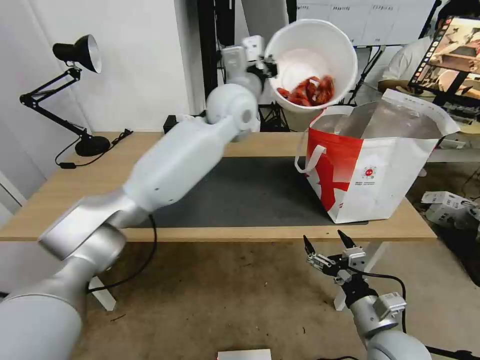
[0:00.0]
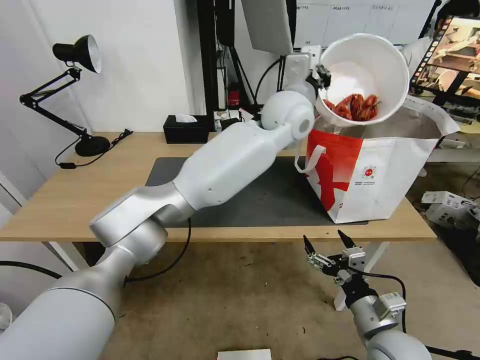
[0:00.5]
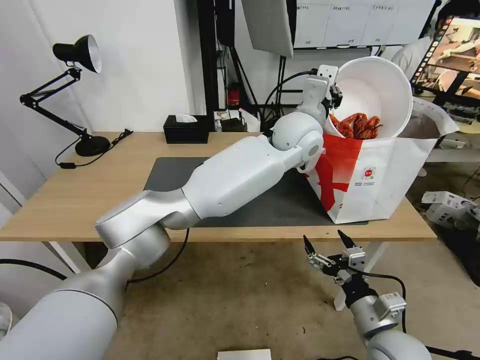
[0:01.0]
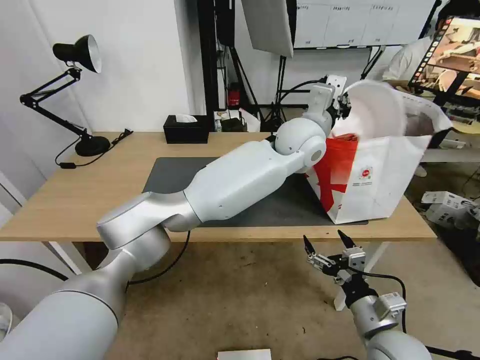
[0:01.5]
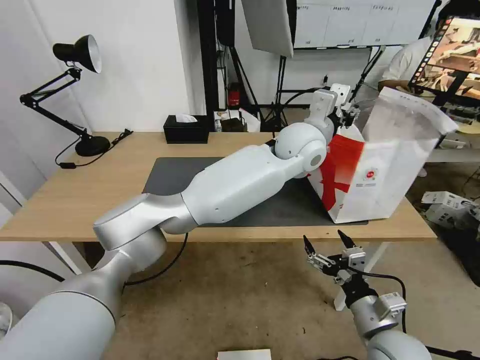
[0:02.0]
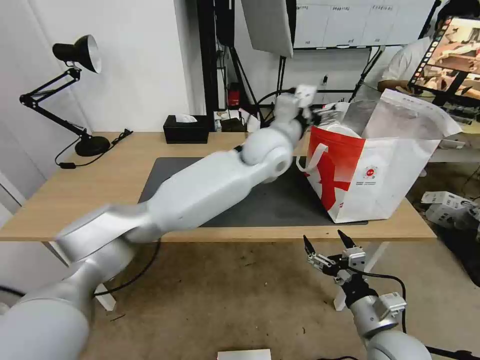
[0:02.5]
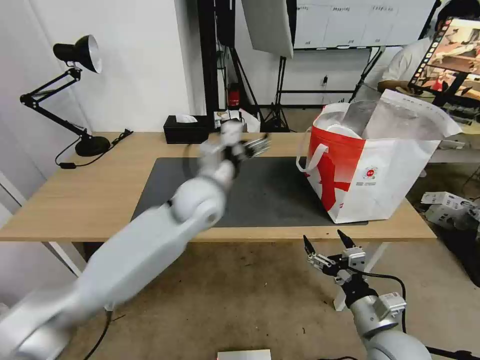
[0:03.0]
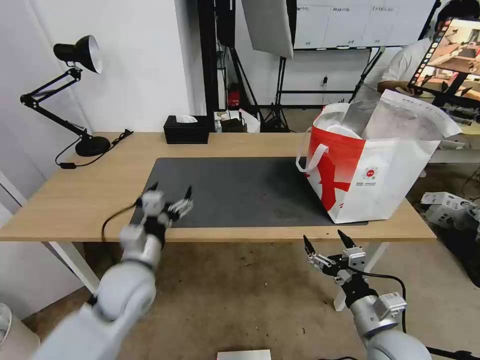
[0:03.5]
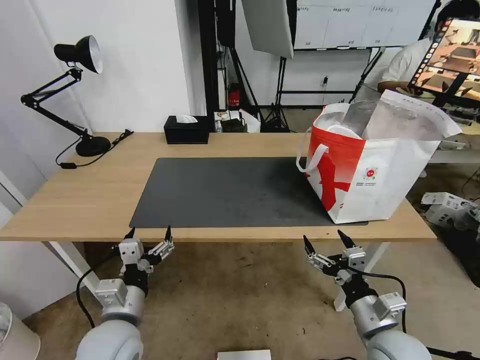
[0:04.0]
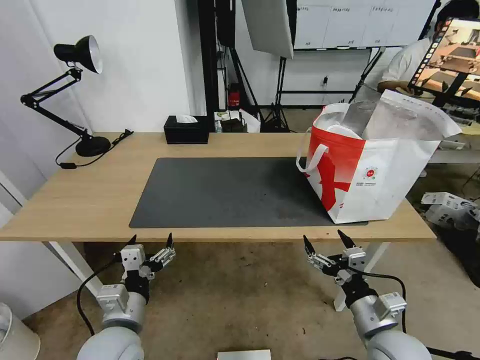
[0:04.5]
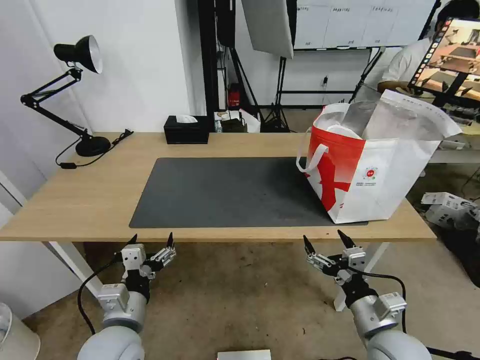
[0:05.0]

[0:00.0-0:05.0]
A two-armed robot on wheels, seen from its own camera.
Task of the whole recording: Pick up the trash from the table and place it into the takeout bag.
0:00.0 to 0:02.5: The left gripper travels downward and to the right by some 10 cm, and opens up.
0:02.5 to 0:05.0: The left gripper is displaced backward, to the left and downward by about 50 cm.
